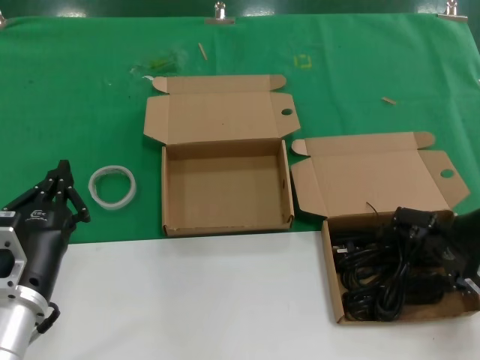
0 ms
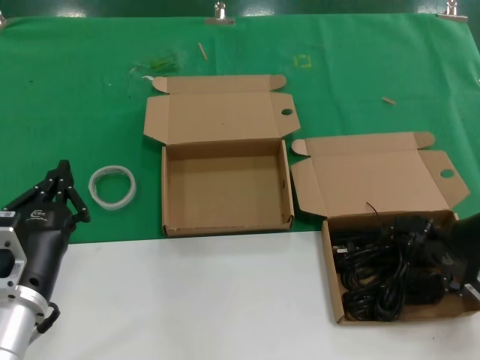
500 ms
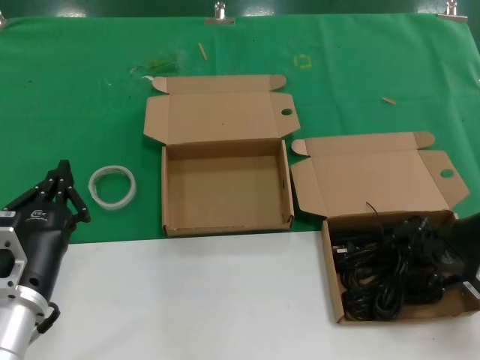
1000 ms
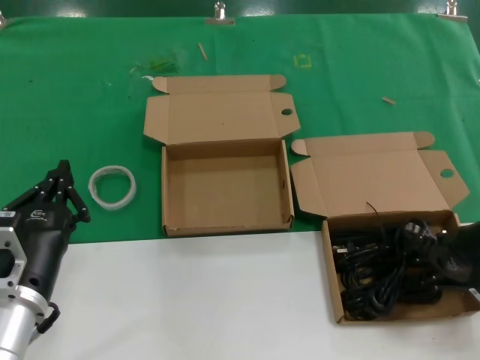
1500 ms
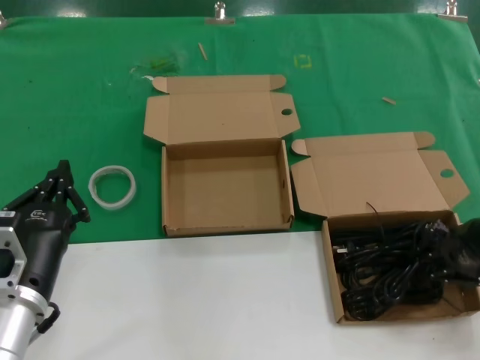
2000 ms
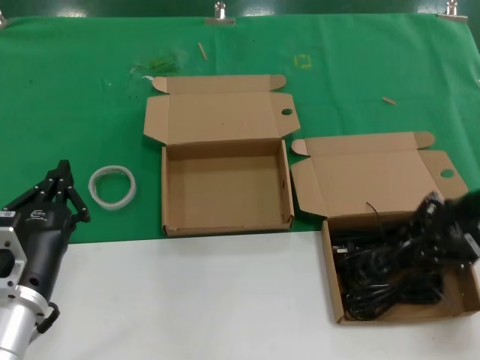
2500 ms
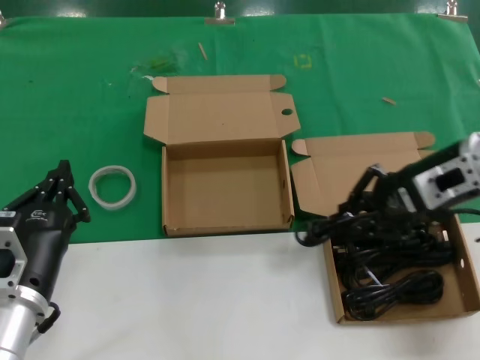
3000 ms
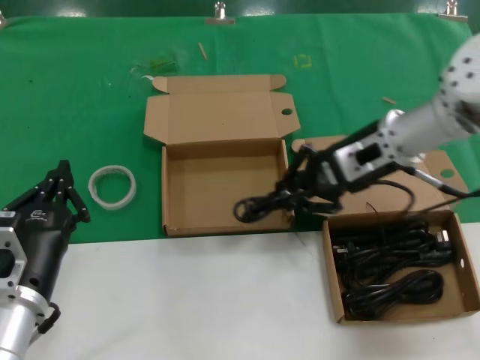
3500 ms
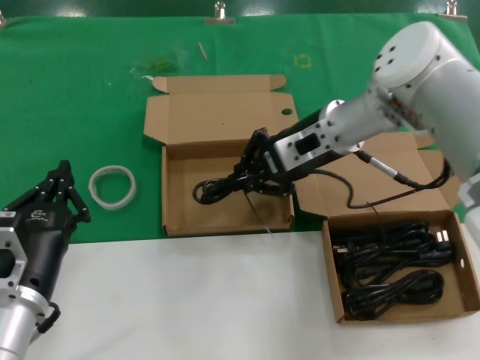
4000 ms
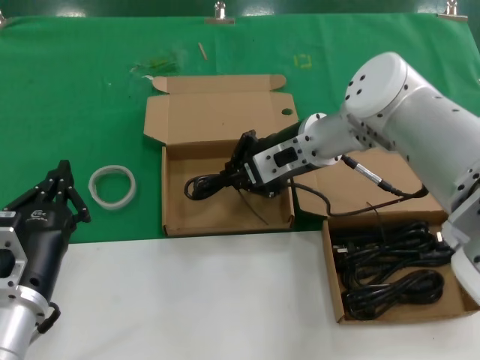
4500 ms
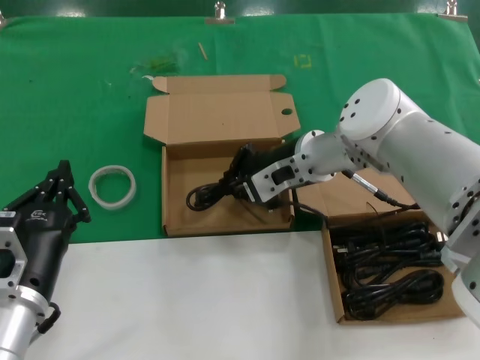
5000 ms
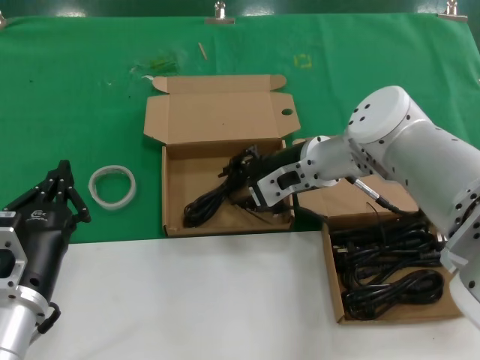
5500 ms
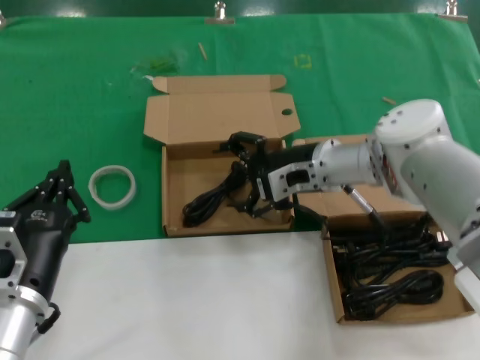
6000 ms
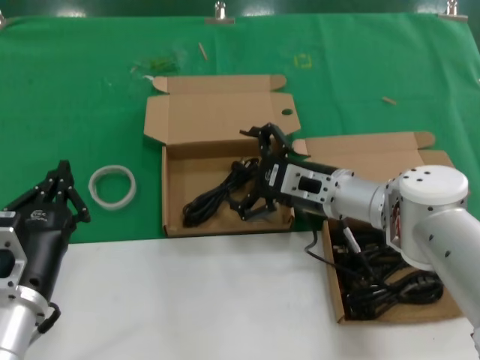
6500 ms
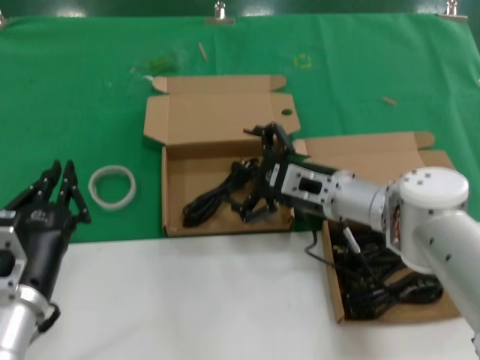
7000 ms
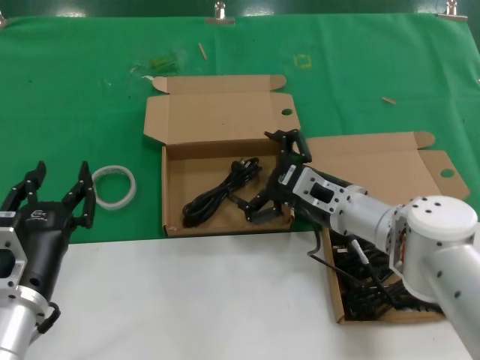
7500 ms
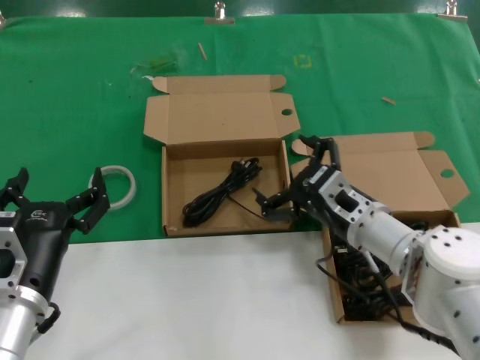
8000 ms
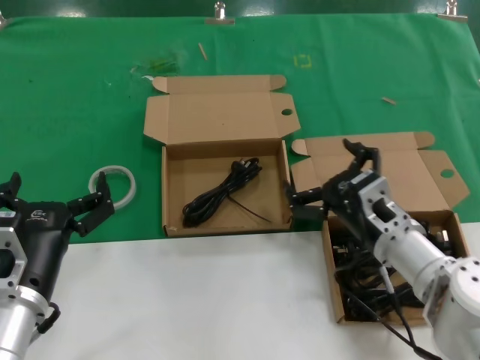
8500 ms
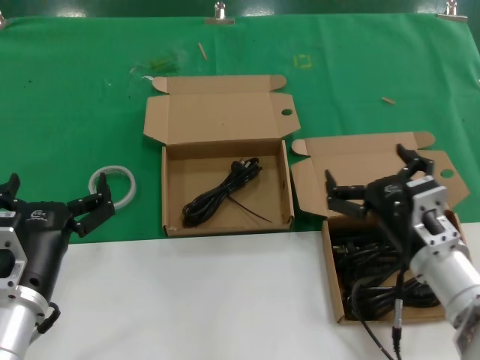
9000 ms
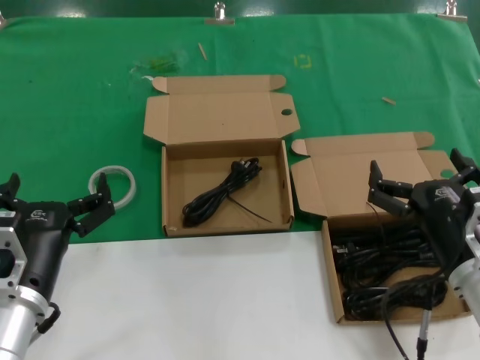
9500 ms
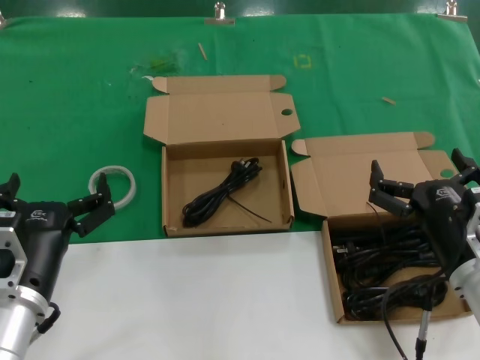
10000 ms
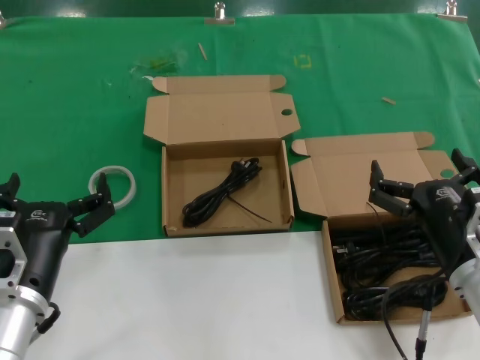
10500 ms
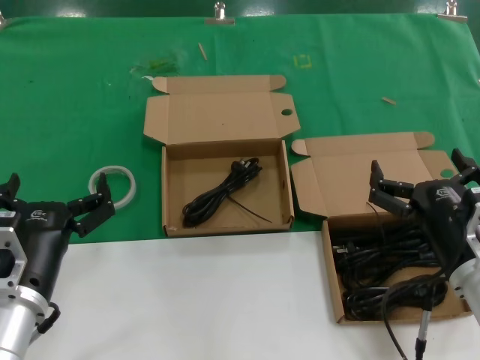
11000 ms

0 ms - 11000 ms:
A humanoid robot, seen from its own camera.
Task of the whole recording: take the parts from the box containing them and put them into an empty box.
Step, 1500 ms - 5000 ms: Place the data cable in the another box.
2000 ms - 3500 ms: The right hand heads to the left and forward, covering roughly 20 cm.
3500 ms - 5500 ms: The right hand goes roughly 10 cm to the left and downward.
5500 ms - 7500 ms: The right hand is displaced downward and backward by approximately 10 cm.
7500 ms - 9000 ms: The right hand travels backward and to the right by some 15 cm.
9000 ms - 11000 ms: The right hand moves some 5 cm.

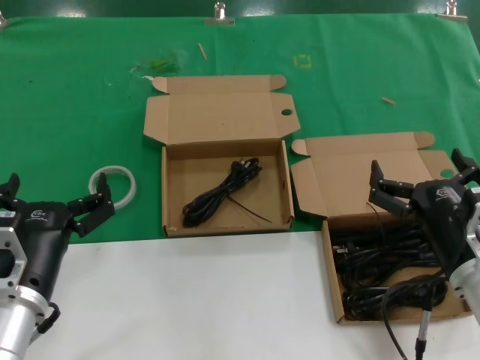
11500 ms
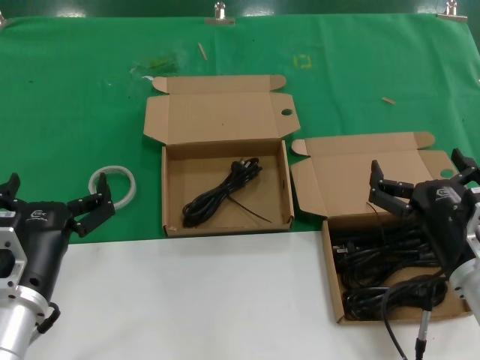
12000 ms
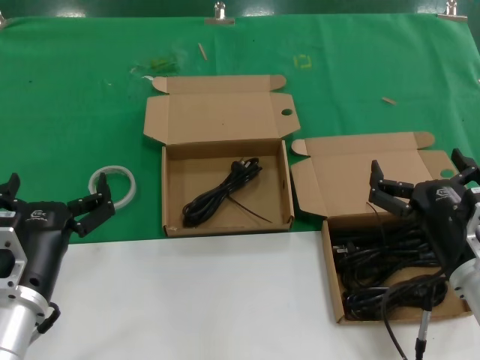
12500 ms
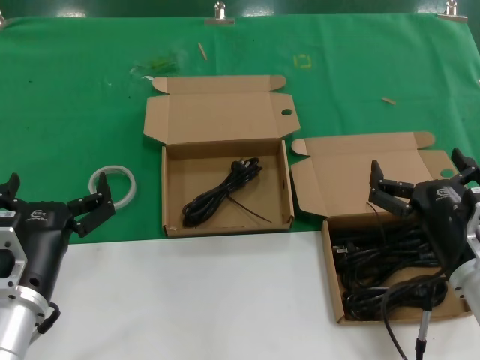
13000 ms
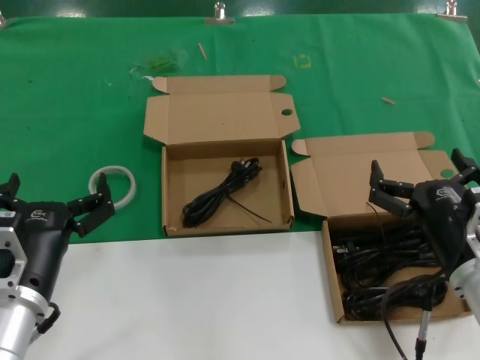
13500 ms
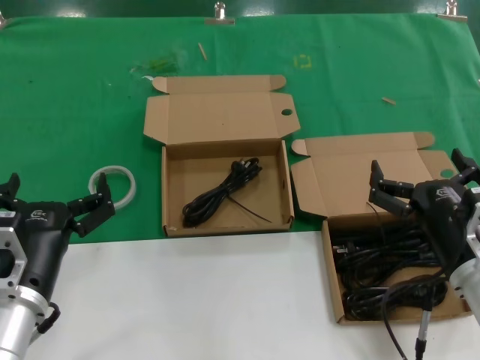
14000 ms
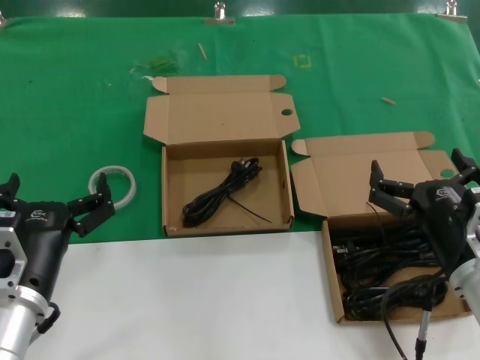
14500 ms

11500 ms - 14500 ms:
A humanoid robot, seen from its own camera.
Task of the whole recording: take the parts from the box containing them and put them into an empty box.
11500 ms - 14500 ms: The two hands keep their place.
